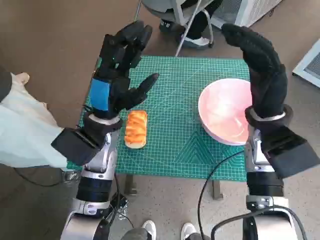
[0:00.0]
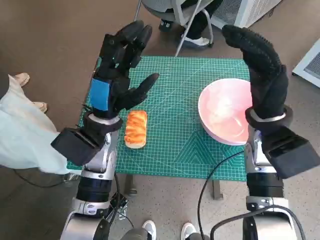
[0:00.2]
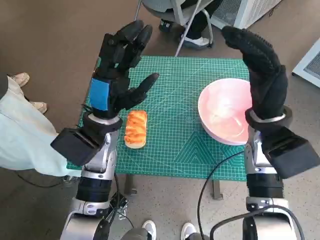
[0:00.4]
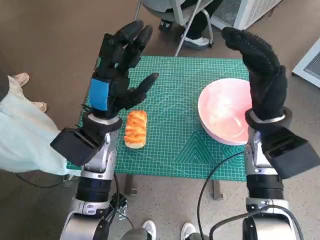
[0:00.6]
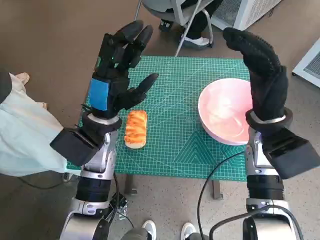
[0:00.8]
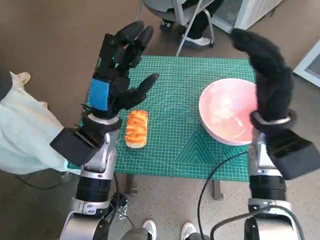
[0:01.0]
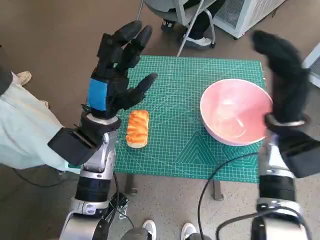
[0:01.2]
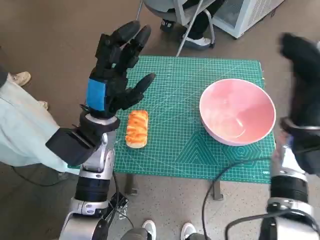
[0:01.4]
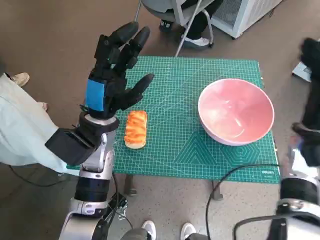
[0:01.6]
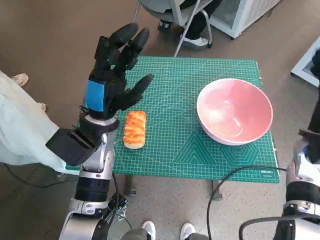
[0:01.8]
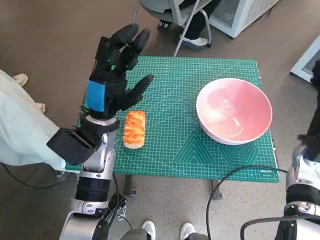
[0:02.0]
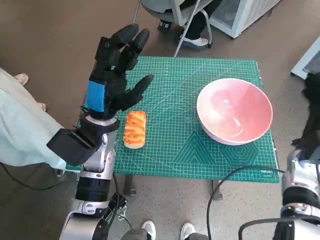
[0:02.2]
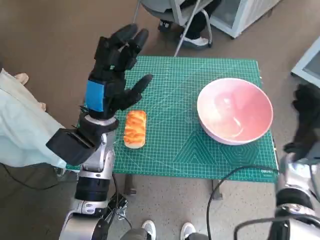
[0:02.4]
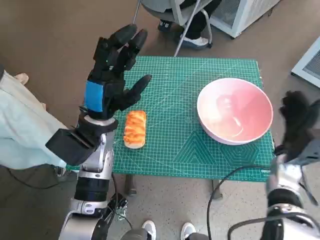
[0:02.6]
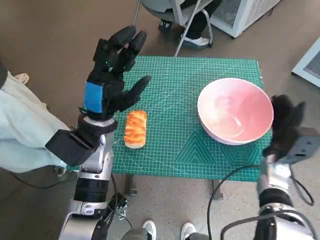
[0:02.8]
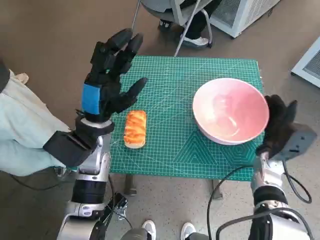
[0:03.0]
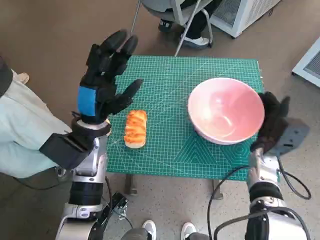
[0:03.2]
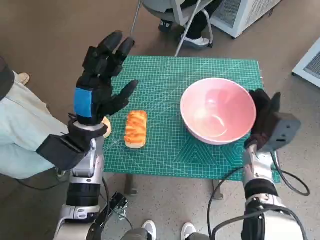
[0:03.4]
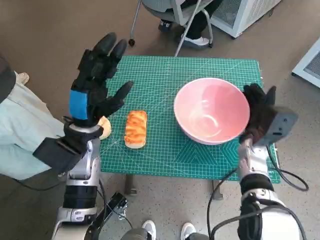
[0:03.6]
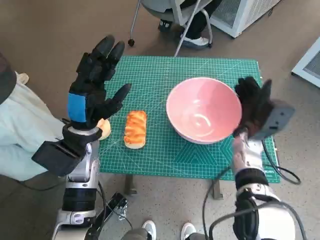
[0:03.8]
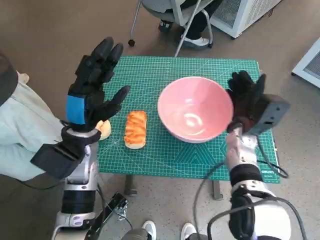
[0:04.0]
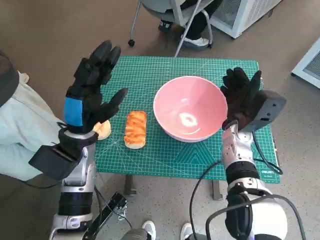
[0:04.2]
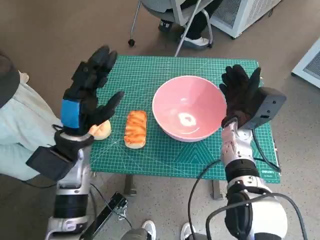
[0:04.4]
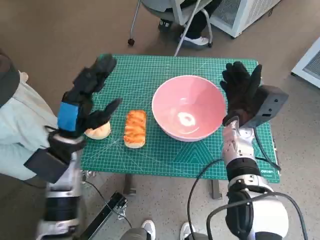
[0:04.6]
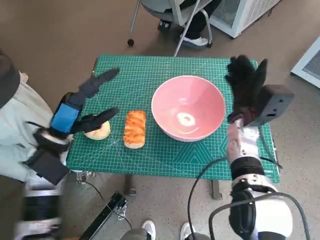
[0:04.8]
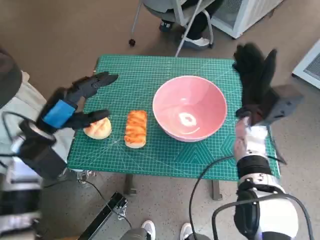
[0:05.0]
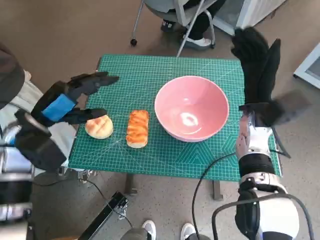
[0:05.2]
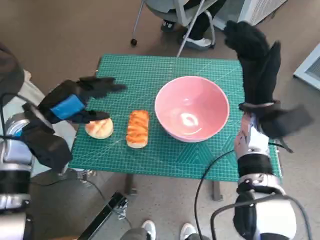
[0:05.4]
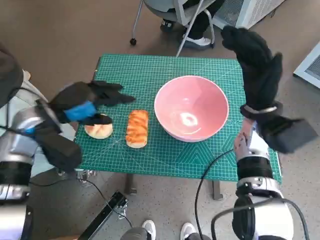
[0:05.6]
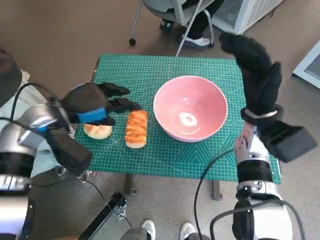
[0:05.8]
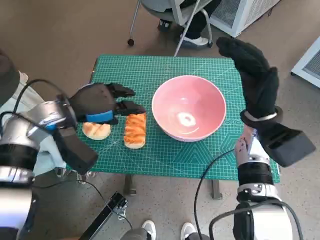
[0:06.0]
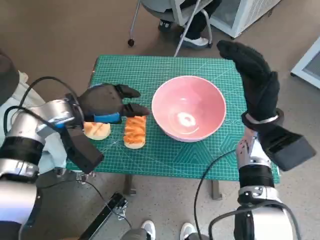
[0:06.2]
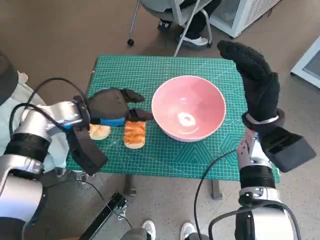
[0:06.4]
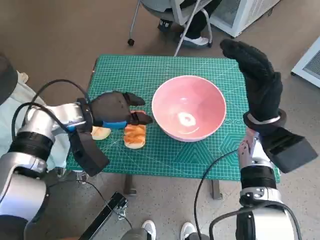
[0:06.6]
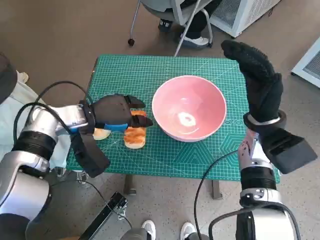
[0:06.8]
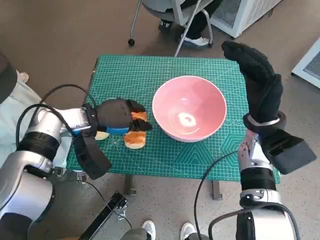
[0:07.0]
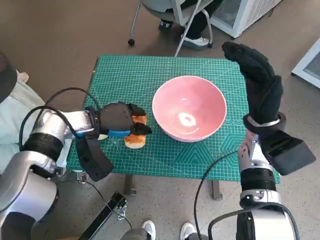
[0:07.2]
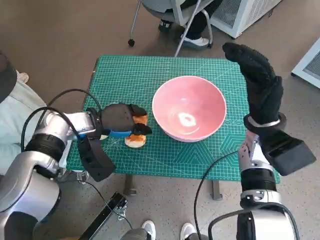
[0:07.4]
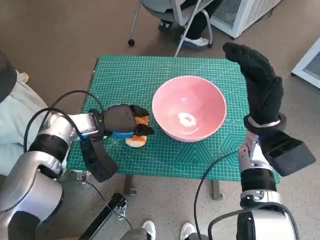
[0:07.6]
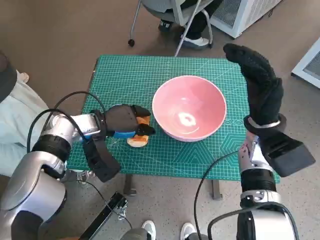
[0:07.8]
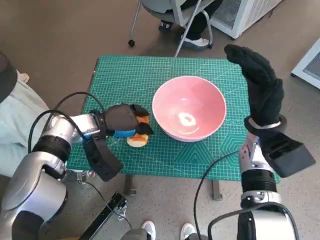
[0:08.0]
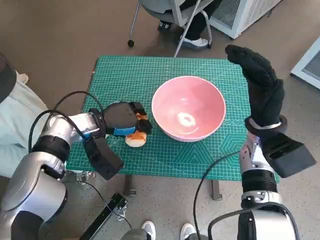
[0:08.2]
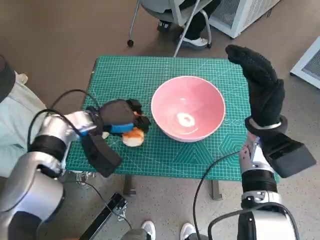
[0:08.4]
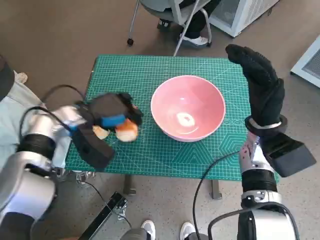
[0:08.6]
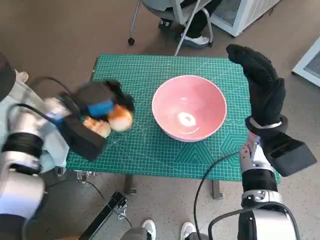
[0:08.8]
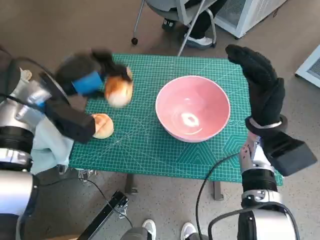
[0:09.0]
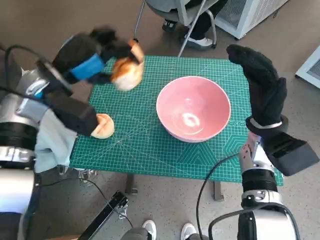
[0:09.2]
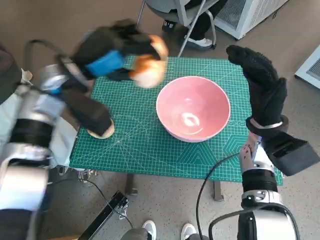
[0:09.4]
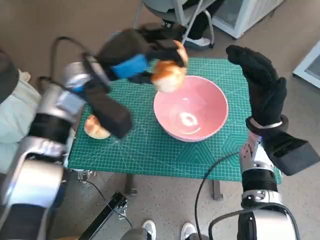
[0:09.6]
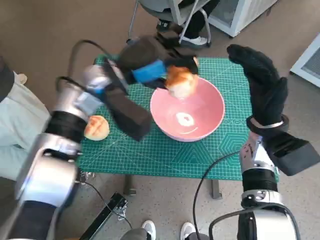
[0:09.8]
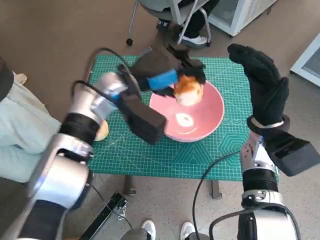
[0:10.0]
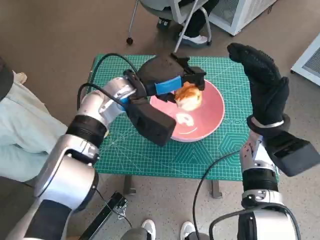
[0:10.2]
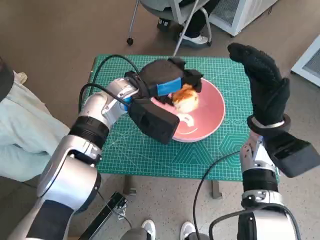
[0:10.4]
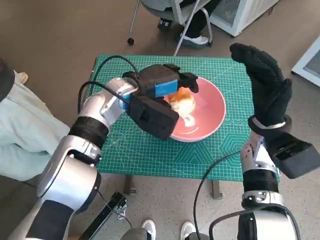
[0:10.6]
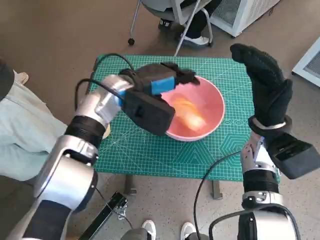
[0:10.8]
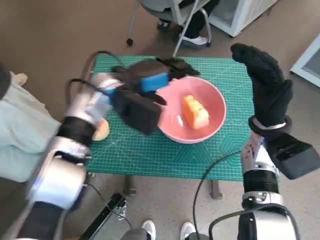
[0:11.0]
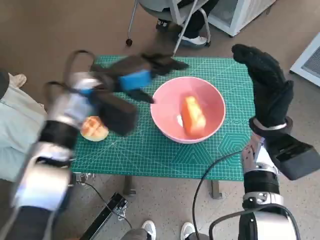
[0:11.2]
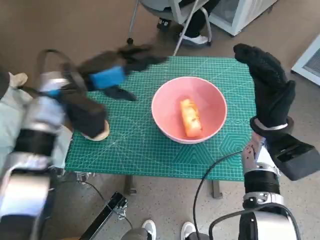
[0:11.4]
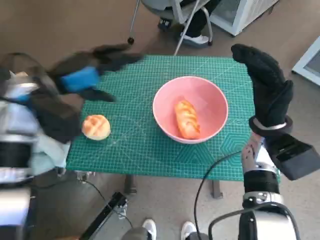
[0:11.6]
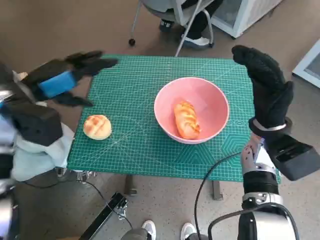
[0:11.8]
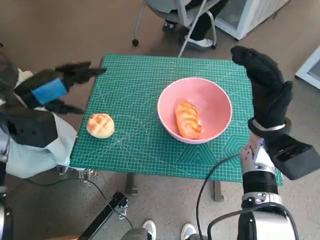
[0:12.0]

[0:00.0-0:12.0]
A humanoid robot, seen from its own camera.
Task of the whole recording: Push the bowl to the center of the table and put the bread into the bowl.
Step, 0:00.0 to 0:04.6: Move the pink bowl to the center of table with right hand.
Step, 0:05.0 to 0:08.0: Grasp the long bread with left hand.
Step, 0:08.2 to 0:10.6: Place the long bread in pink bowl with left hand.
0:01.6 to 0:03.0: The right hand goes roughly 10 cm downward.
0:03.0 to 0:04.4: The right hand travels to the left and upward by some 10 cm.
0:04.4 to 0:06.0: The right hand goes approximately 5 cm upward; the left hand changes place by about 5 cm.
0:06.0 to 0:07.6: The left hand travels downward by about 5 cm.
0:07.6 to 0:09.0: The left hand heads upward, covering approximately 10 cm.
0:09.0 to 0:10.4: The left hand goes roughly 15 cm to the right.
0:10.4 to 0:12.0: The left hand shifts roughly 20 cm to the left.

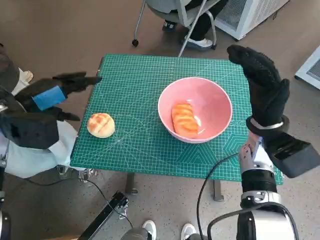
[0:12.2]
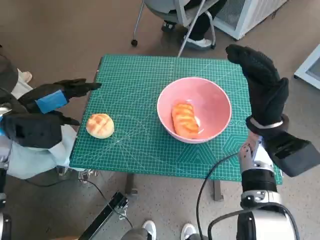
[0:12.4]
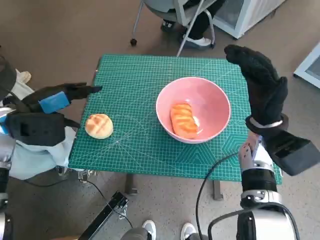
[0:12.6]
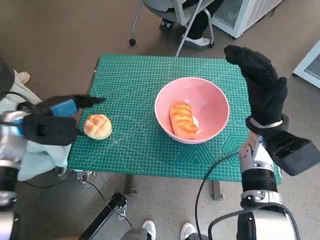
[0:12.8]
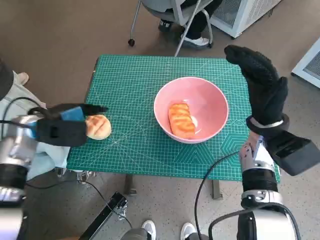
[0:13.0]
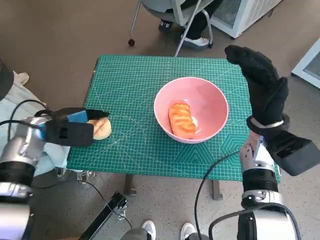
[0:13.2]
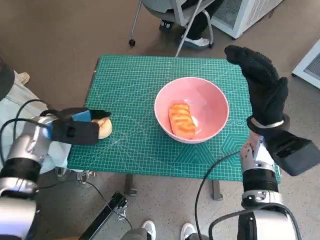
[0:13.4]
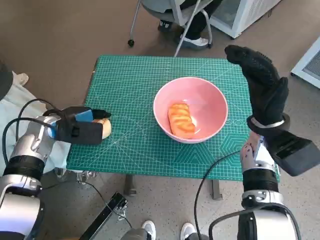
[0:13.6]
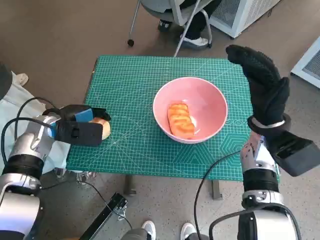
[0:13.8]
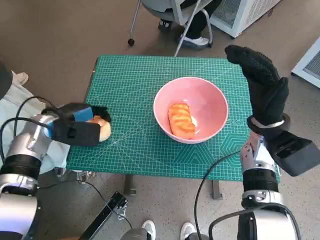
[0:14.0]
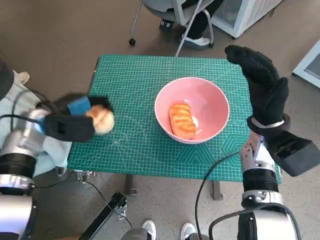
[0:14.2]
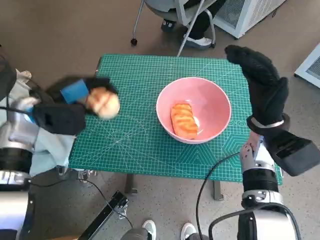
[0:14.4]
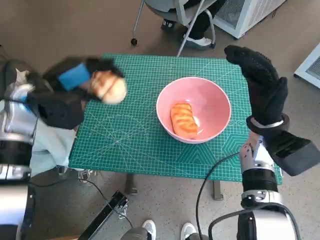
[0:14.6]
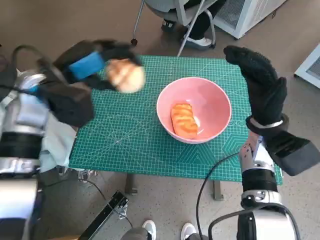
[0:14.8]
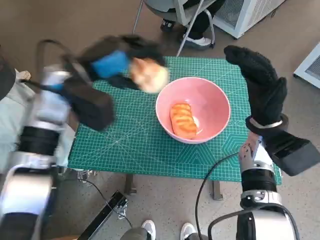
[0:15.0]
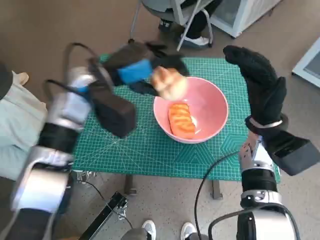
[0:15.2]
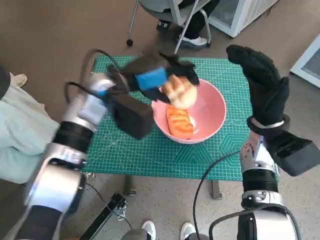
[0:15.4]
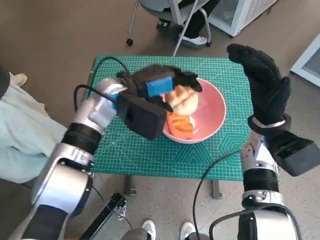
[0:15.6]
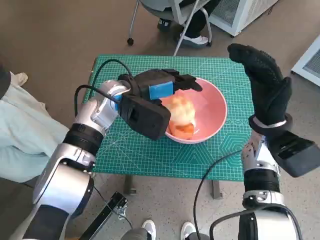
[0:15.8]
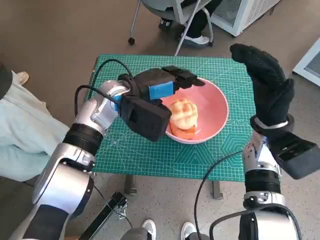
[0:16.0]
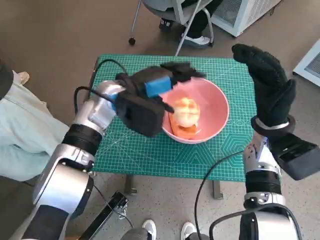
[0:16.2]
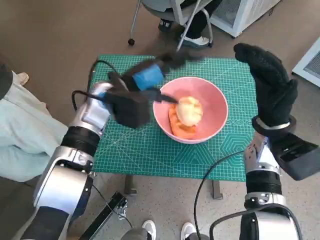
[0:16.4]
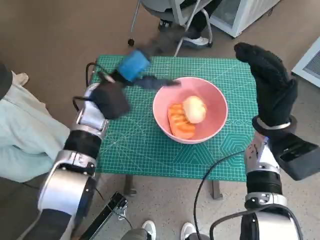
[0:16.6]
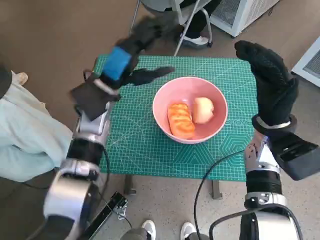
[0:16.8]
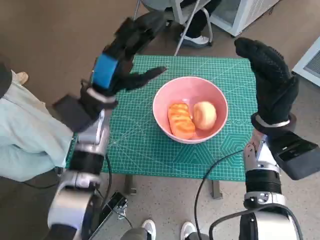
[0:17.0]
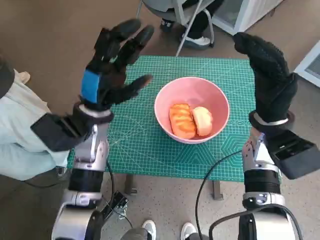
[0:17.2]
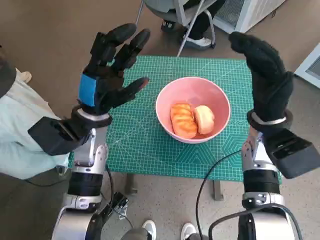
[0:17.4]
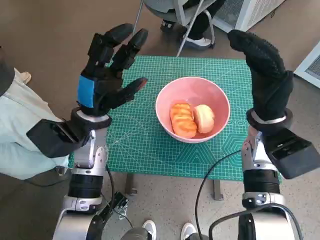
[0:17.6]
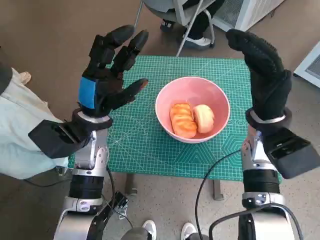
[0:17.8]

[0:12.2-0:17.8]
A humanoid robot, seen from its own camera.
Task of the whole recording: Push the bowl to the center of the table and put the bread into the bowl.
Step, 0:12.2 to 0:13.8: Grasp the round bread with left hand.
Step, 0:14.0 to 0:15.6: Place the round bread in pink bowl with left hand.
0:12.2 to 0:13.6: The left hand travels downward by some 10 cm.
0:13.6 to 0:15.0: The left hand travels upward and to the right by approximately 15 cm.
0:15.0 to 0:16.4: The left hand is displaced to the right and downward by approximately 10 cm.
0:16.4 to 0:17.8: The left hand is displaced backward by about 5 cm.
